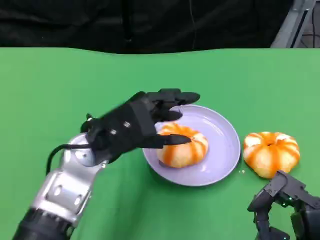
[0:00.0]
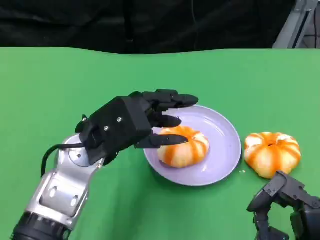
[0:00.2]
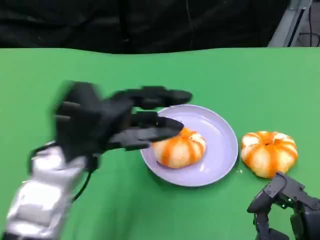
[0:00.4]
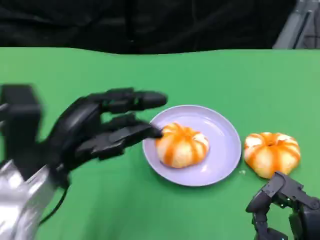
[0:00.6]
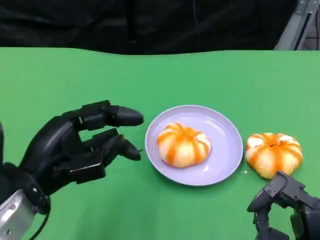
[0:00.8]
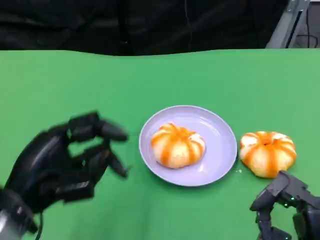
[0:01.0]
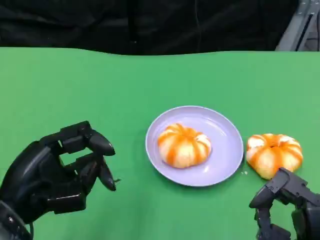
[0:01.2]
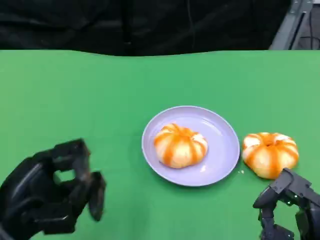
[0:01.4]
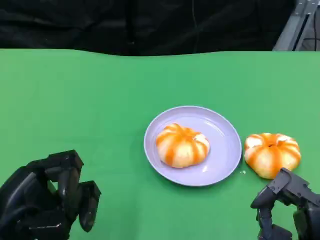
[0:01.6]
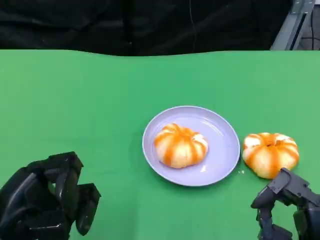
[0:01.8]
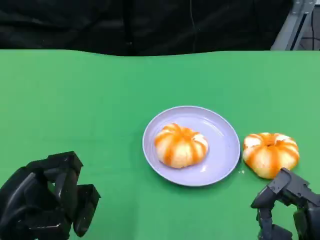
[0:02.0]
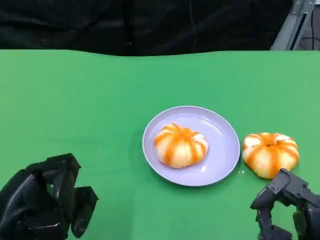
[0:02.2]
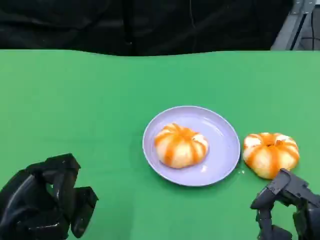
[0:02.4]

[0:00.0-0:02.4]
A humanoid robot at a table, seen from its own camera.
Task of the whole recording: Grasp the bread from the table and place it into the plate.
0:00.0 to 0:01.2: The left hand moves to the left and backward, approximately 15 cm.
0:01.2 to 0:02.4: The hands make only small movements.

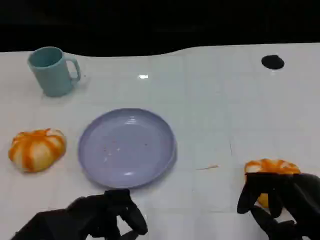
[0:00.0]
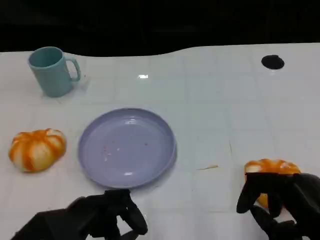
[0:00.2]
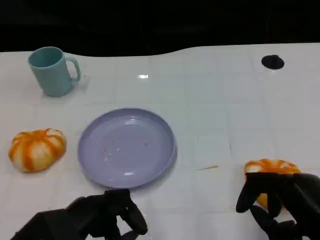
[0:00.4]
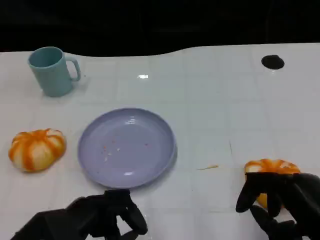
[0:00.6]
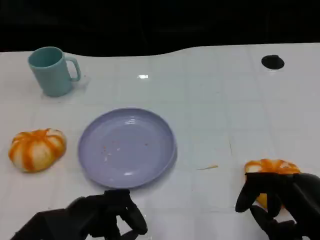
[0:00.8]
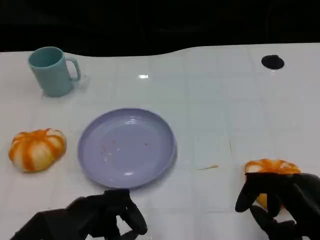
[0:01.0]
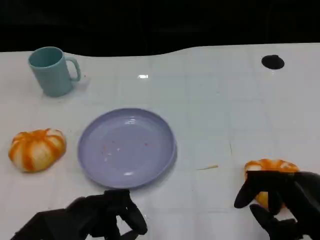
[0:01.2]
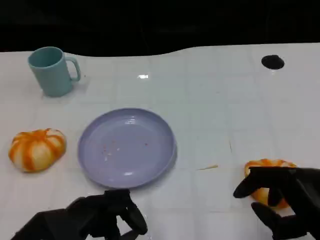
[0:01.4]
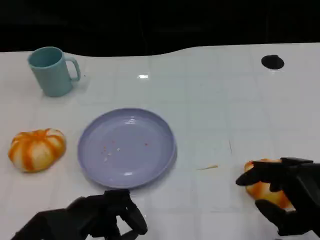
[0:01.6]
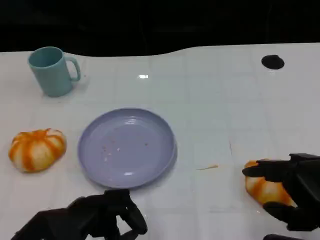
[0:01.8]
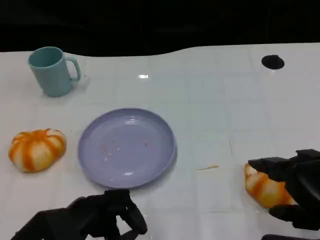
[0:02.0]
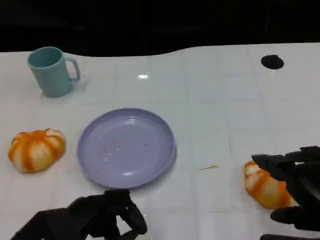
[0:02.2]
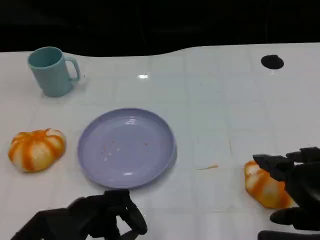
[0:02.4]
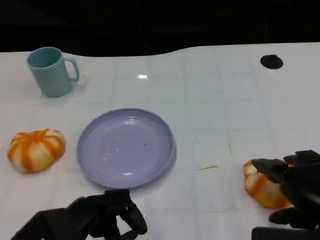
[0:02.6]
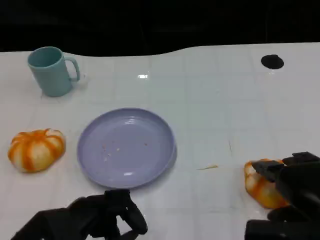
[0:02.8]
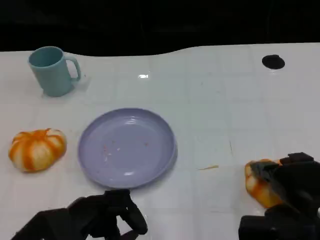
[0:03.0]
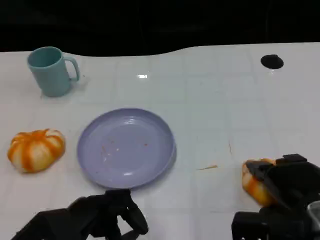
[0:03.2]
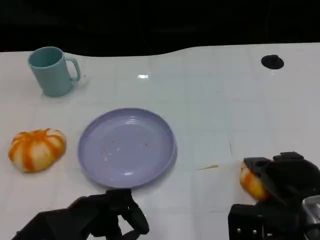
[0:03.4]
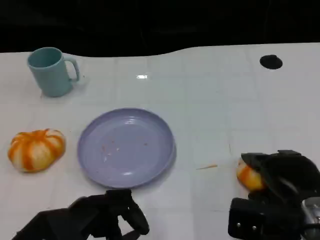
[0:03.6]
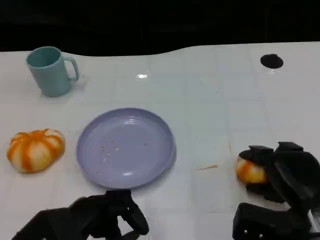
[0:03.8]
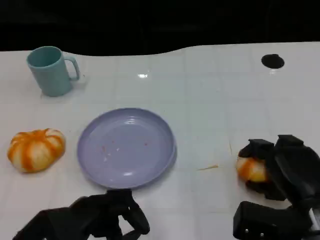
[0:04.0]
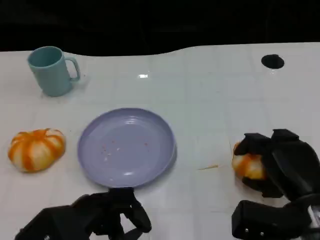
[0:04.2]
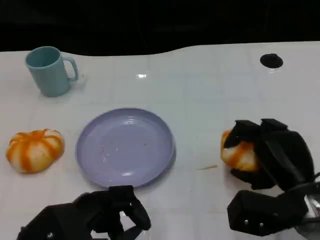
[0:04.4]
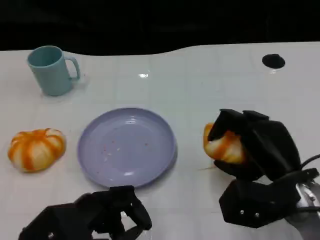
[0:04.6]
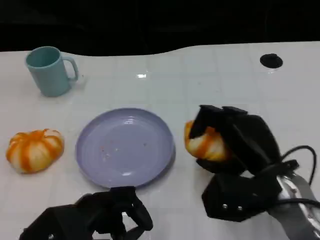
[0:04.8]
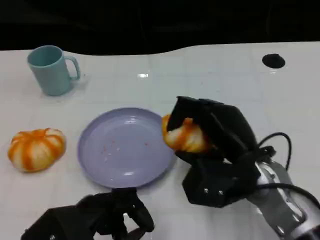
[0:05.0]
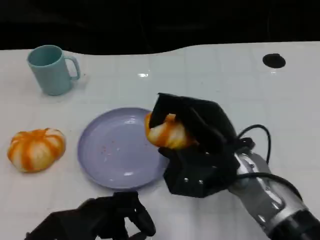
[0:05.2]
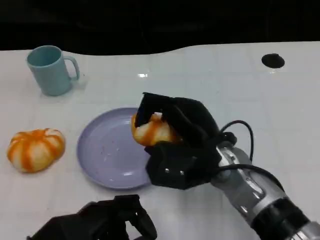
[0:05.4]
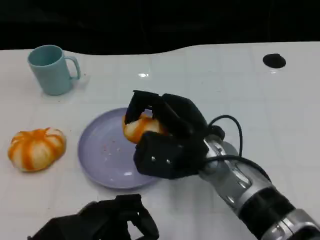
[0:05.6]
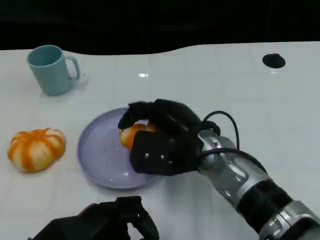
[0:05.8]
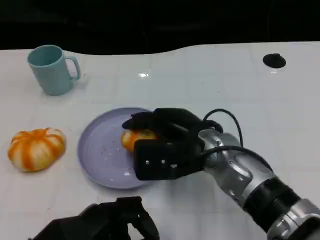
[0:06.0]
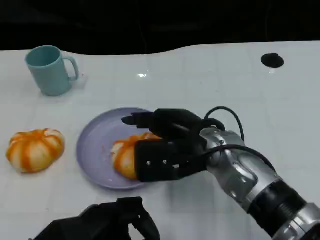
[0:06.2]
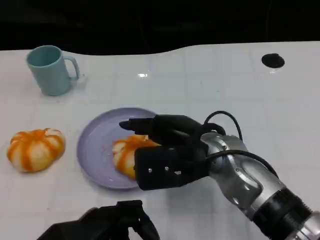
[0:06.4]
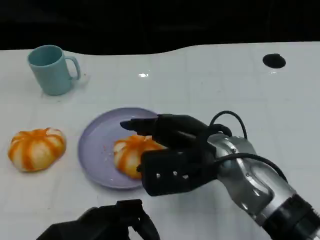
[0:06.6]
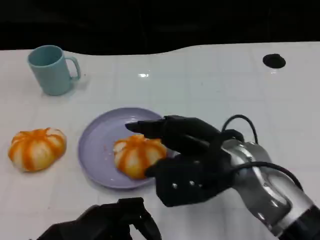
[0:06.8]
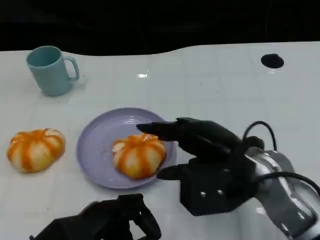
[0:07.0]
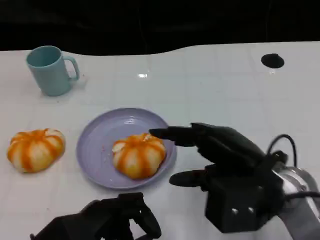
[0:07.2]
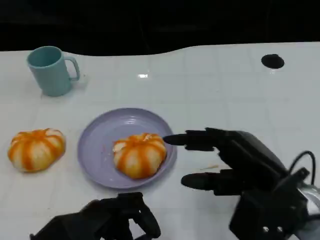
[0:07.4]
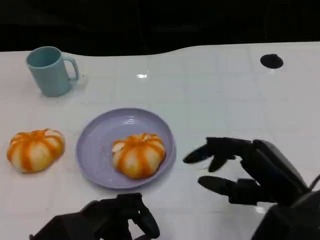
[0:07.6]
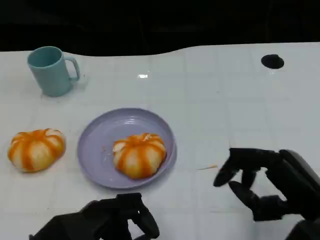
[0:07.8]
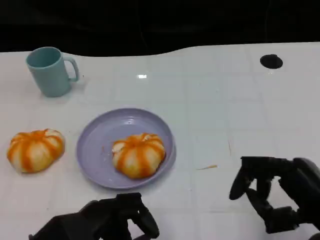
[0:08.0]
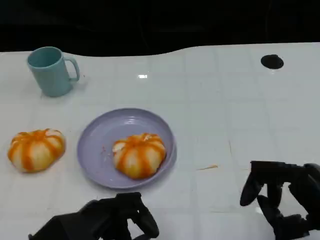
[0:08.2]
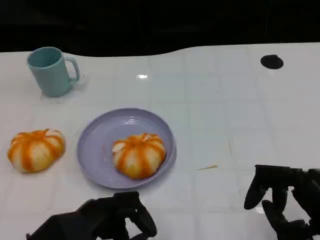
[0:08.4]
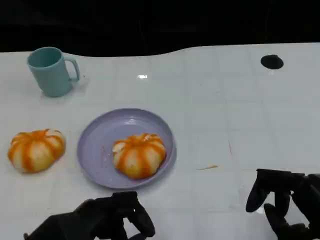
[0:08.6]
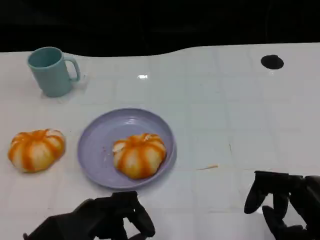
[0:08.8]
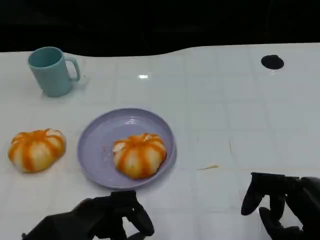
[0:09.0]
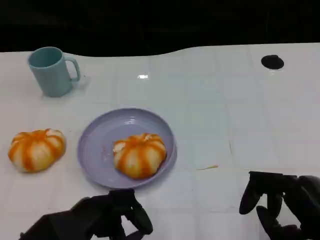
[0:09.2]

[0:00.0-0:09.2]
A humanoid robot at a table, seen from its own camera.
Task of the whole recording: Grasp the bread from the table and place it into the plate.
0:00.0 to 0:01.6: The hands stay close to where they were, moving slightly.
0:01.6 to 0:03.0: The right hand shifts by some 5 cm.
0:03.0 to 0:04.6: The right hand changes place by about 5 cm.
0:04.6 to 0:06.2: The right hand travels to the left by approximately 10 cm.
0:06.2 to 0:07.6: The right hand is displaced to the right and backward by some 15 cm.
0:07.6 to 0:09.2: The right hand moves roughly 5 cm.

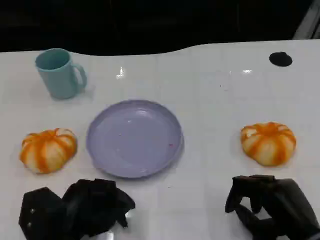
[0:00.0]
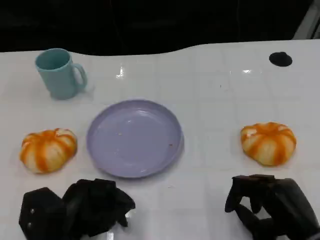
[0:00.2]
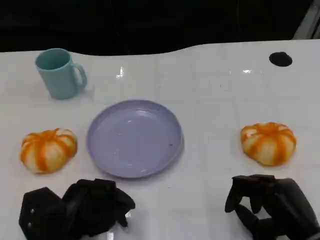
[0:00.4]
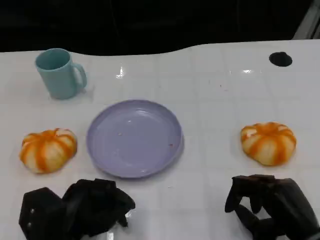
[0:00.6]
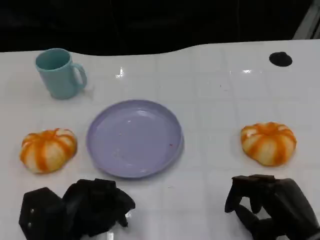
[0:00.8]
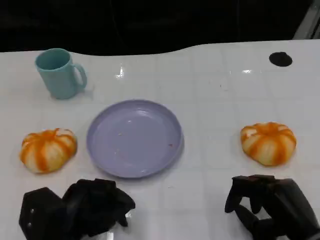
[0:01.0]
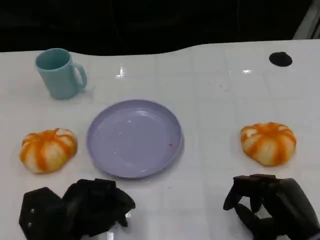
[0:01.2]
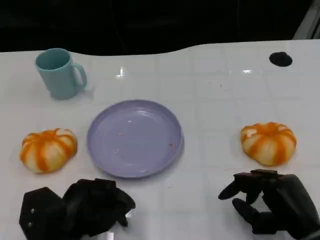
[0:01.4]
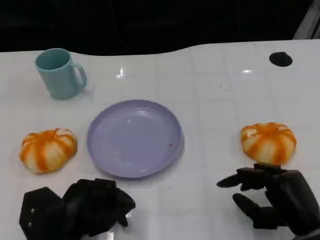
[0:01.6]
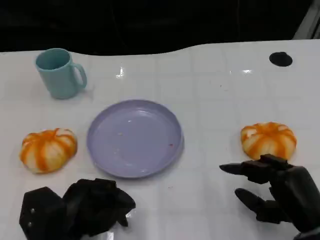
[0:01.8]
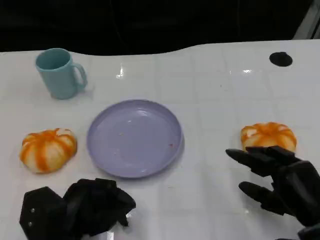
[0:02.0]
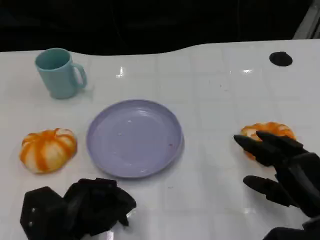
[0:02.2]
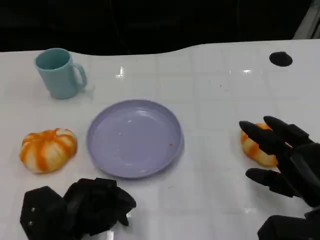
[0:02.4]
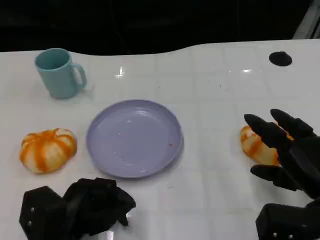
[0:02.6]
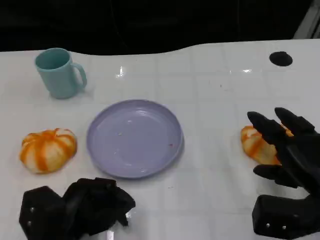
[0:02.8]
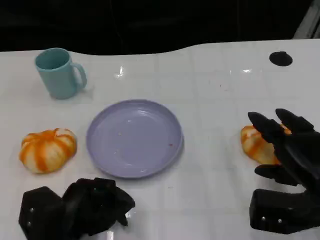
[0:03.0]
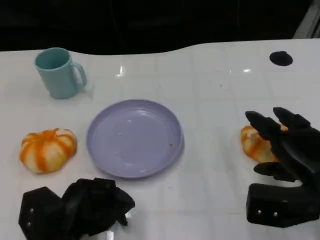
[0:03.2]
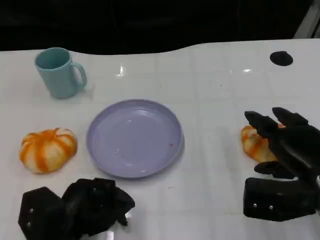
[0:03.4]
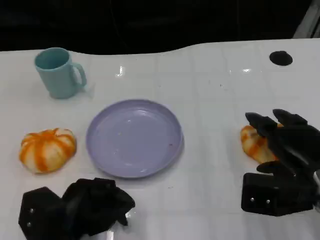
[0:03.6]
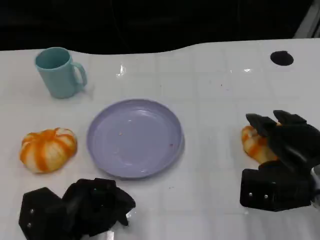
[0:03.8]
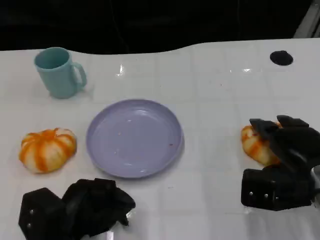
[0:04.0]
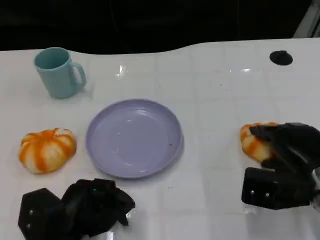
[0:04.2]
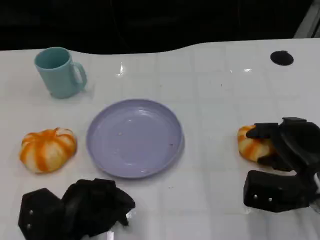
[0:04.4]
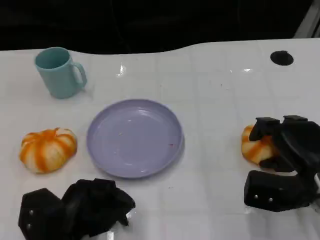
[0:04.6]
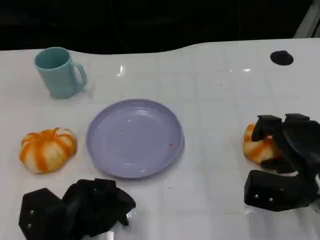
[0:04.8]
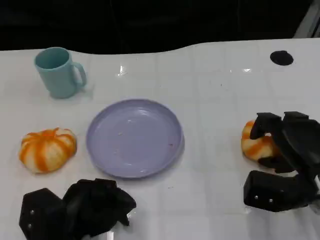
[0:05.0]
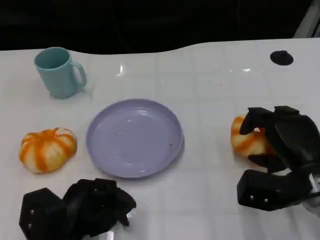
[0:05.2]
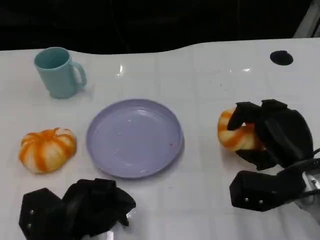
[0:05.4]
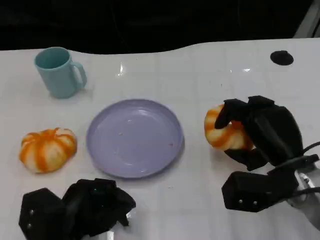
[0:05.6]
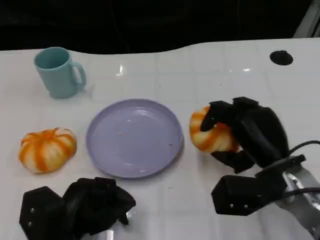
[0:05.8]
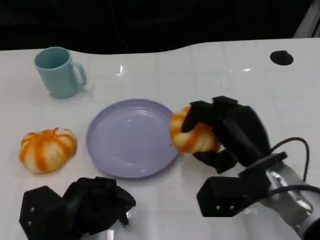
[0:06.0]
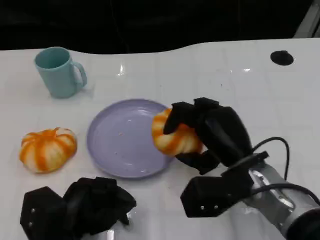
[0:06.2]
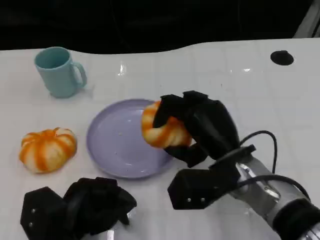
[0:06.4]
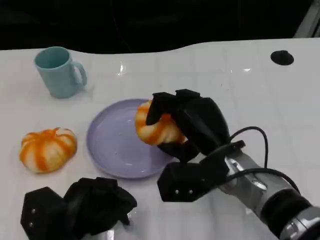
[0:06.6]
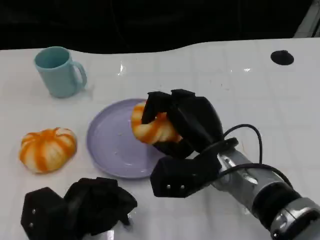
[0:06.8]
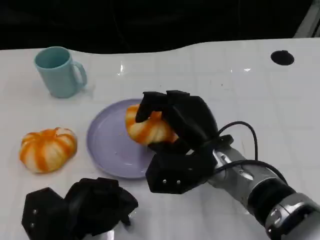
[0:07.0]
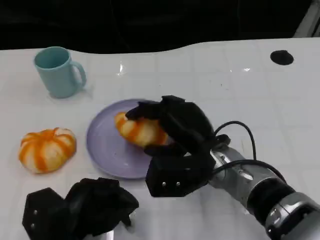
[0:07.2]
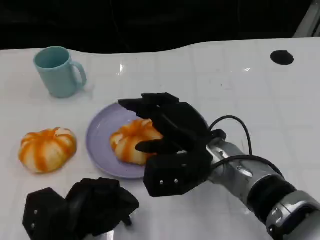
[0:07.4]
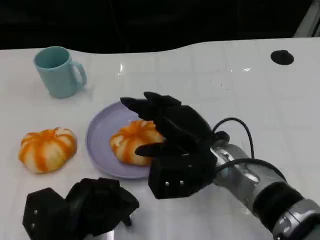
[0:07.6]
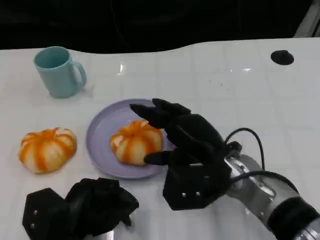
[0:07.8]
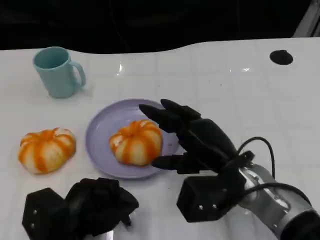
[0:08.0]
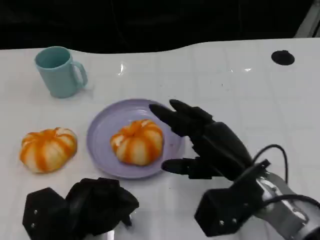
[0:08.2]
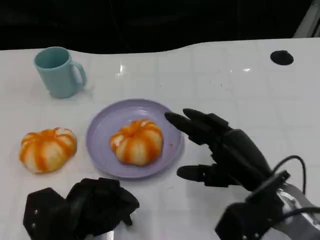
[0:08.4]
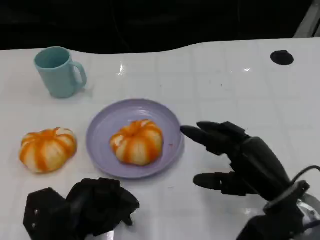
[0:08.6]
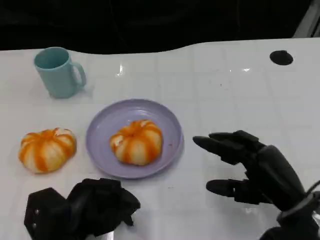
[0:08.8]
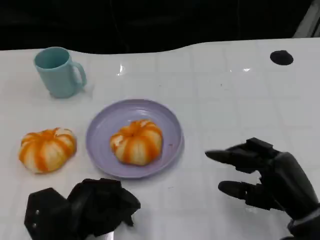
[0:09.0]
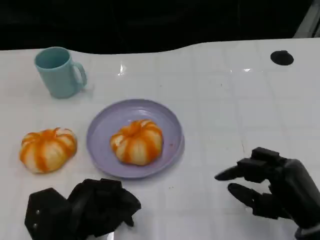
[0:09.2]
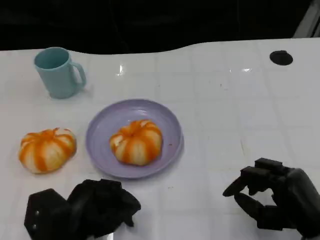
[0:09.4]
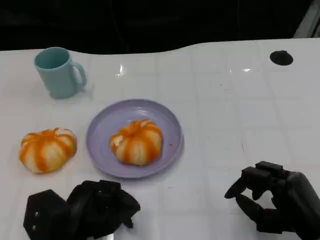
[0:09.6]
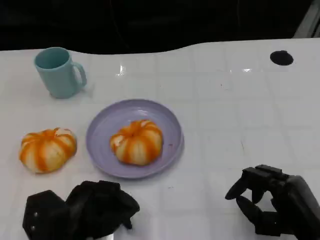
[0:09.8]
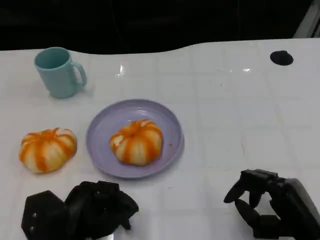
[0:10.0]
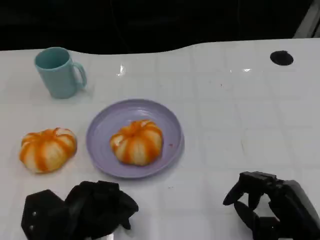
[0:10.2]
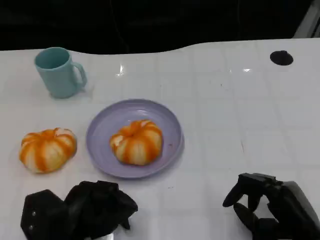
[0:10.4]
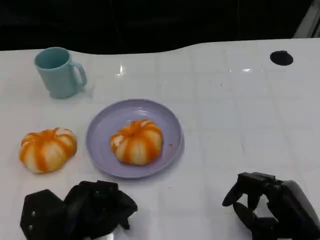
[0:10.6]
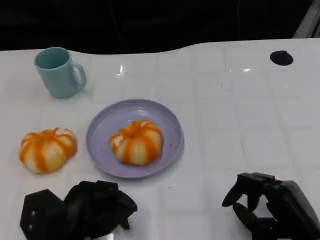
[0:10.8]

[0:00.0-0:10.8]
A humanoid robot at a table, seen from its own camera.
Task of the whole recording: Grasp the bread from the table and place it into the plate.
0:00.0 to 0:01.6: The hands make only small movements.
0:01.6 to 0:03.0: The right hand shifts by some 5 cm.
0:03.0 to 0:04.6: The hands make only small movements.
0:04.6 to 0:06.2: The right hand goes some 10 cm to the left.
0:07.8 to 0:09.2: The right hand goes some 15 cm to the right and backward.
0:09.2 to 0:10.8: The hands make only small movements.
